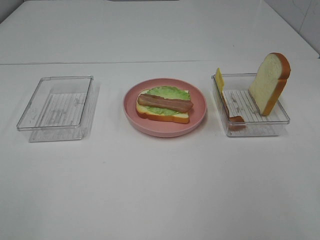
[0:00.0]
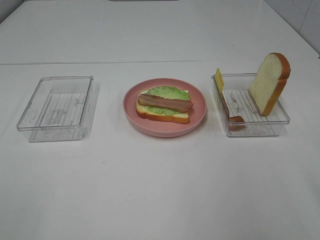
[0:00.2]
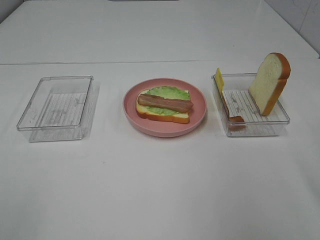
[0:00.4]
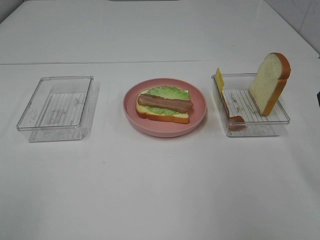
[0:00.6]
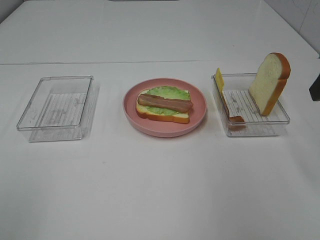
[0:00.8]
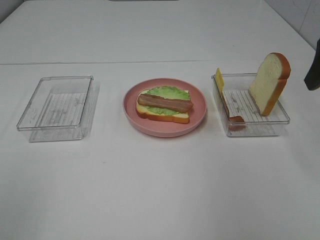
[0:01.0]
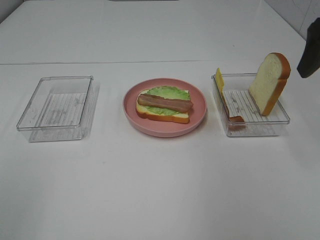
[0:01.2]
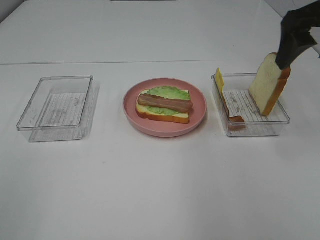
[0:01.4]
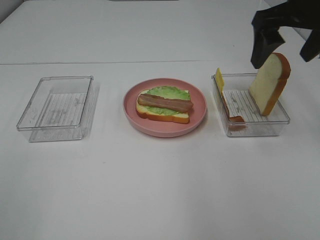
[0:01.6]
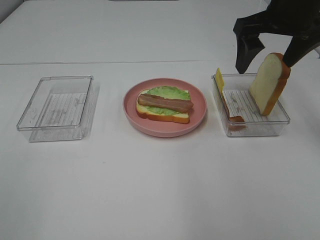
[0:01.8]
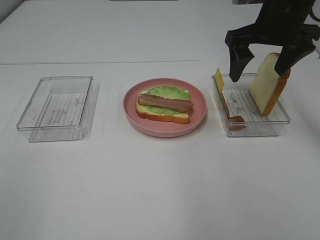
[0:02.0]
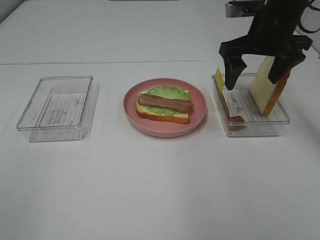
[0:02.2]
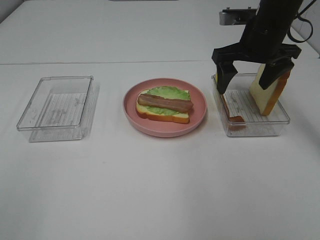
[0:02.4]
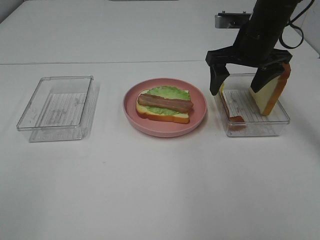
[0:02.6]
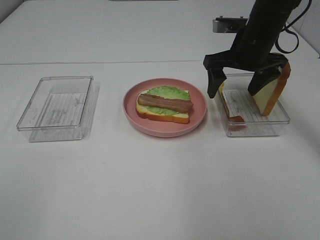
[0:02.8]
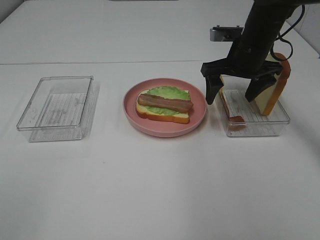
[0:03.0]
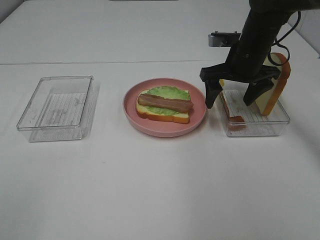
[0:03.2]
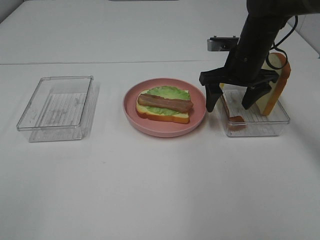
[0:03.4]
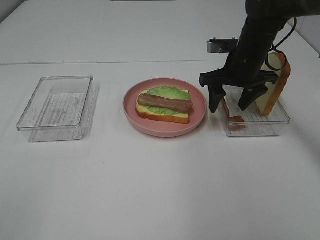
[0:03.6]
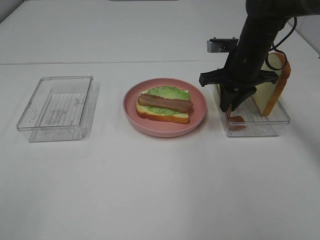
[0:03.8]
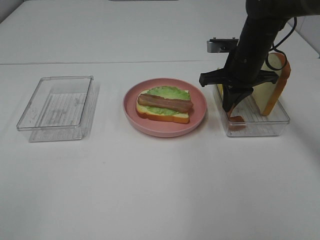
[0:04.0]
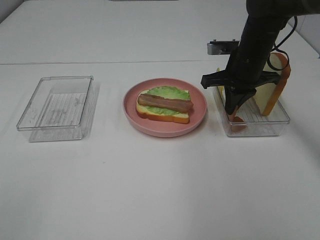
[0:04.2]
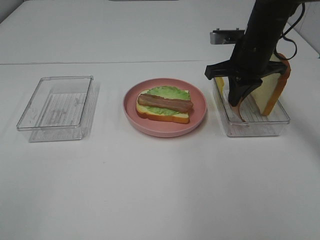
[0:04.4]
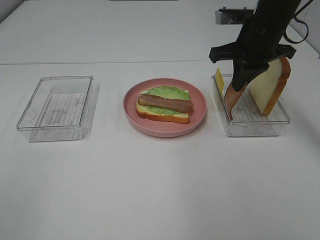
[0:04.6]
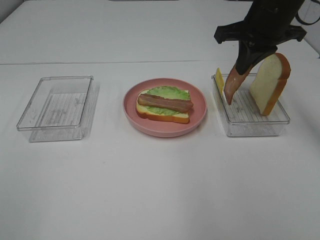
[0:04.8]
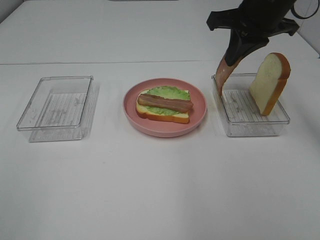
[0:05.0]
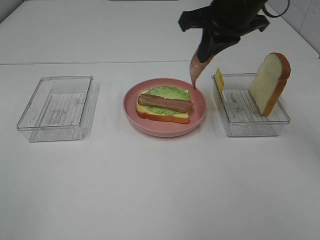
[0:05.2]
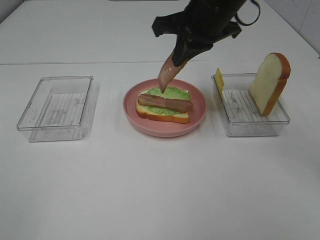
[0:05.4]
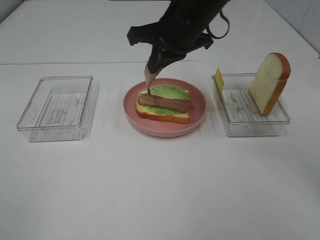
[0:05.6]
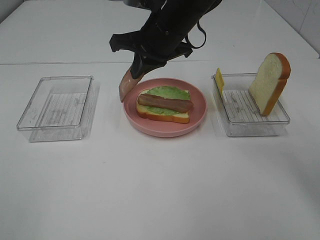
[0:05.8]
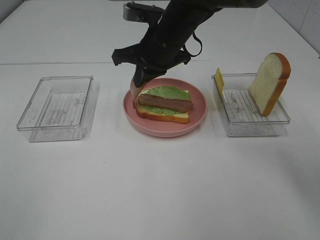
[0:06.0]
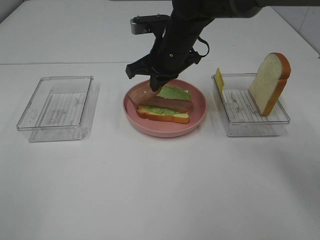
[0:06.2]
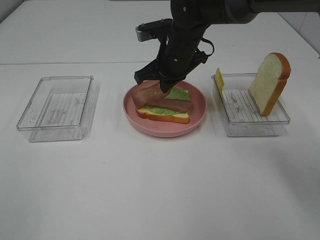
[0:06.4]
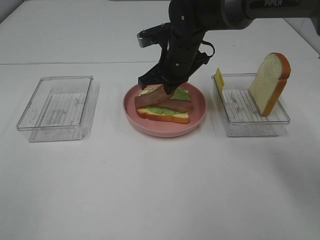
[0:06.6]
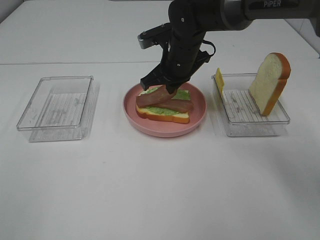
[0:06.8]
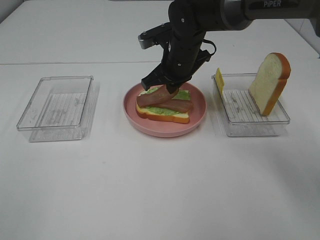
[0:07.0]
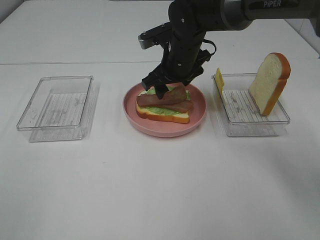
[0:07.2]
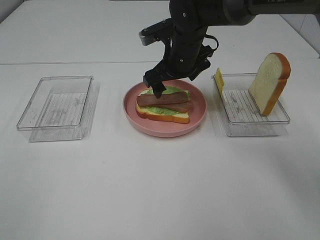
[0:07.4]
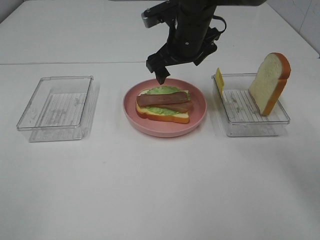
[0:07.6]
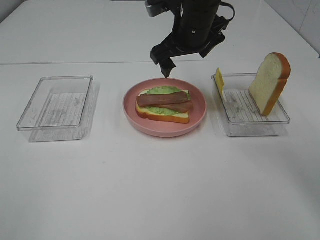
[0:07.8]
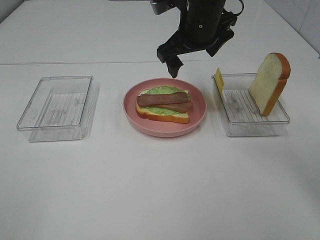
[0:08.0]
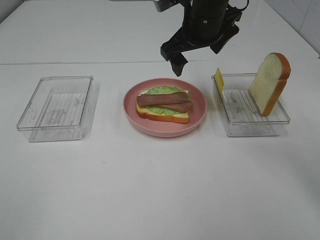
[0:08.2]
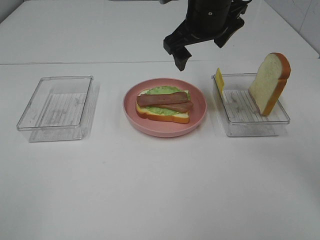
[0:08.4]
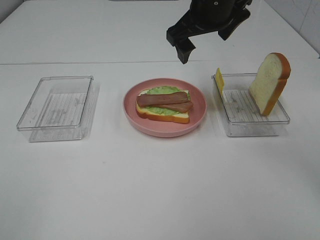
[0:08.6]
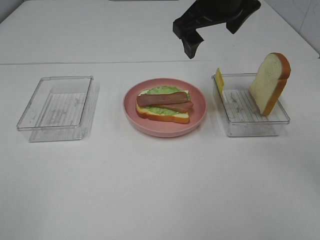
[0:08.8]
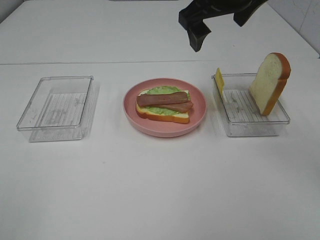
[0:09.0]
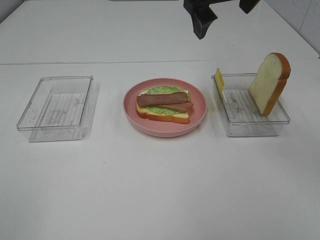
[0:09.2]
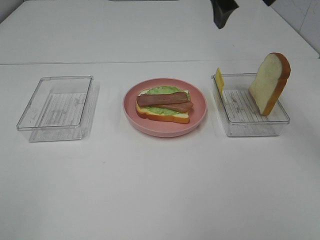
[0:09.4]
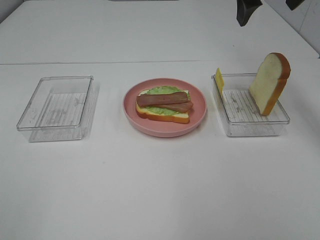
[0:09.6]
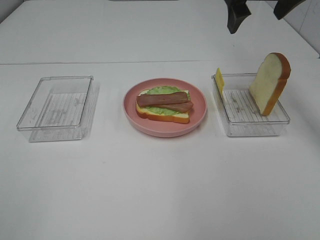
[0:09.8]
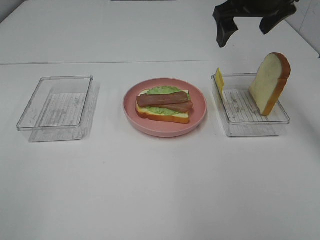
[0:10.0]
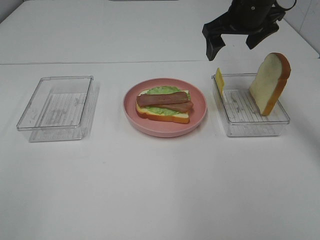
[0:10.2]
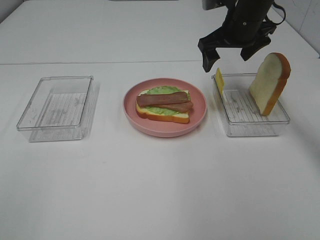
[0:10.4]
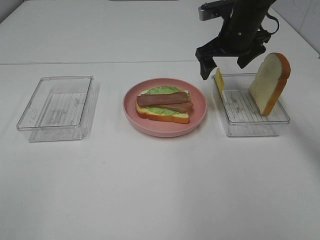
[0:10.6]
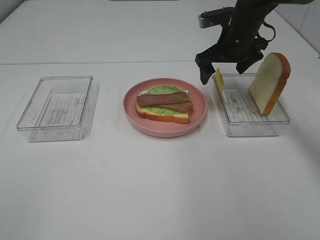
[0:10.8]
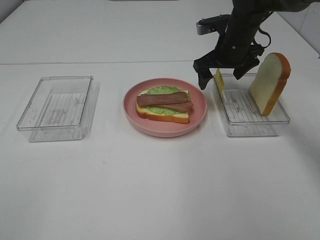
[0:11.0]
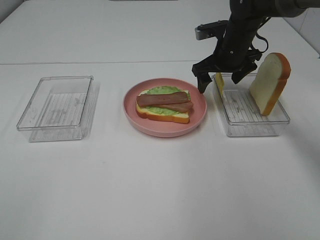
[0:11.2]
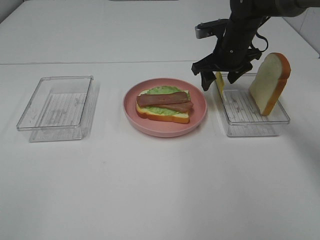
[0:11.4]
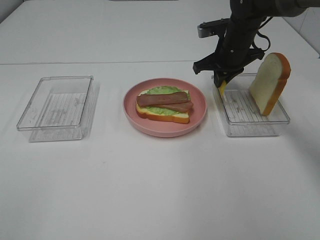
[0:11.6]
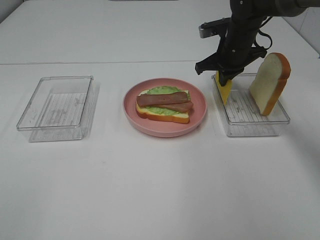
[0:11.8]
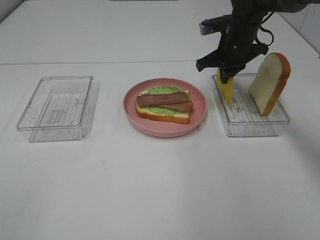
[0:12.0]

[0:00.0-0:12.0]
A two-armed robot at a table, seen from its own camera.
Task of the whole recording: Make sandwiches.
Step, 0:00.0 to 0:04.2: Right hand:grab the bacon.
Step, 0:04.4 to 0:07.6: Right hand:place bacon on bacon.
Step, 0:07.8 to 0:11.8: Right hand:grab the cheese slice.
0:00.0 to 0:01.6: The right gripper goes approximately 30 cm forward.
0:01.6 to 0:03.0: The right gripper goes some 15 cm downward and forward.
0:03.0 to 0:04.4: The right gripper closes its fingers.
0:04.4 to 0:06.0: The right gripper shifts some 15 cm to the left.
0:06.0 to 0:07.6: The right gripper opens up.
0:07.6 to 0:09.0: The right gripper moves upward and backward, about 10 cm.
0:09.0 to 0:10.4: The right gripper heads downward, forward and to the right, covering about 15 cm.
0:10.4 to 0:12.0: The right gripper moves approximately 5 cm, and closes up.

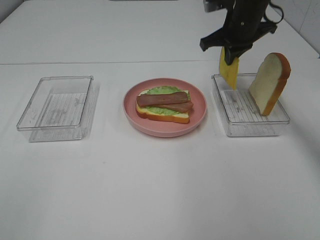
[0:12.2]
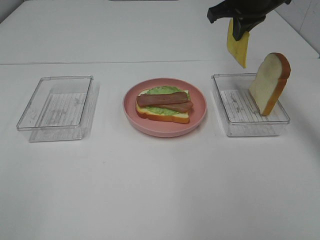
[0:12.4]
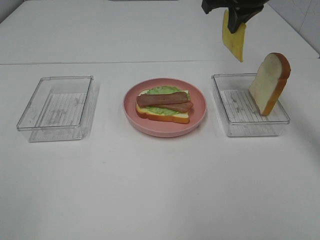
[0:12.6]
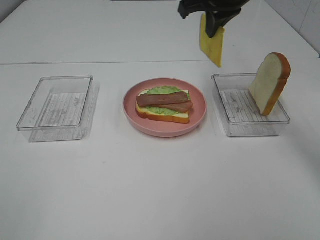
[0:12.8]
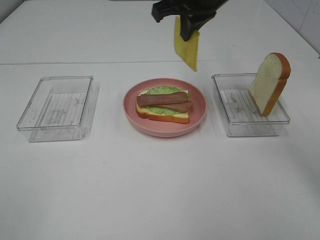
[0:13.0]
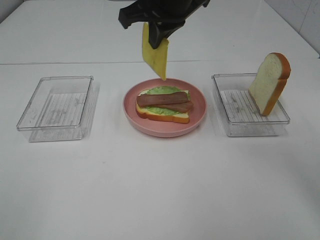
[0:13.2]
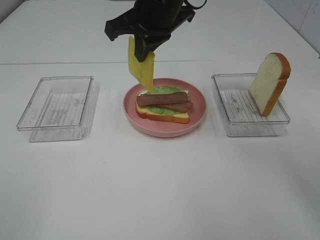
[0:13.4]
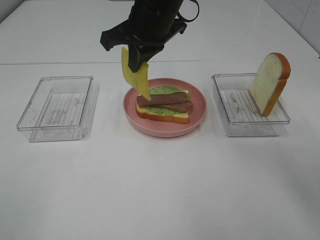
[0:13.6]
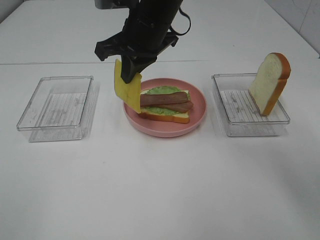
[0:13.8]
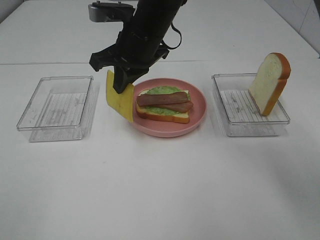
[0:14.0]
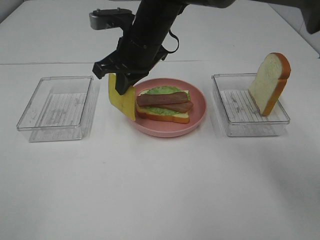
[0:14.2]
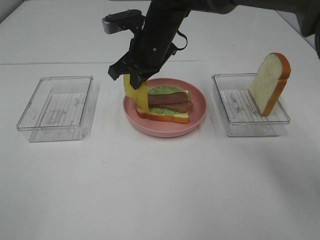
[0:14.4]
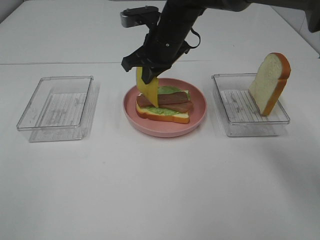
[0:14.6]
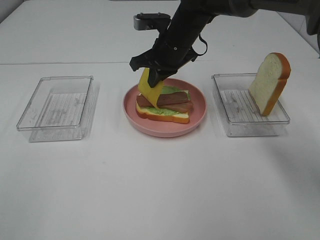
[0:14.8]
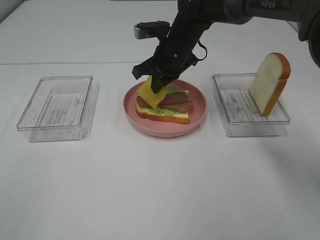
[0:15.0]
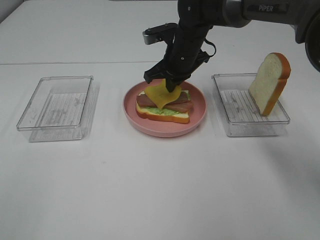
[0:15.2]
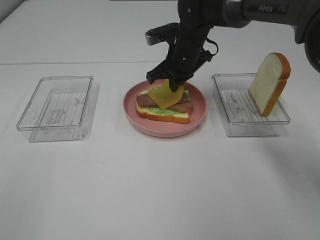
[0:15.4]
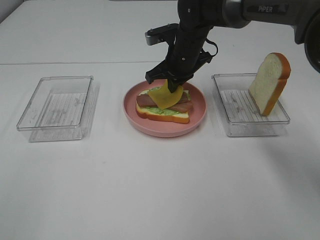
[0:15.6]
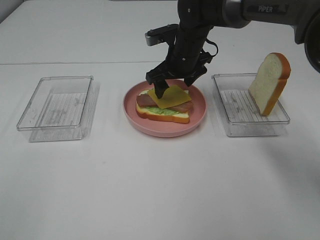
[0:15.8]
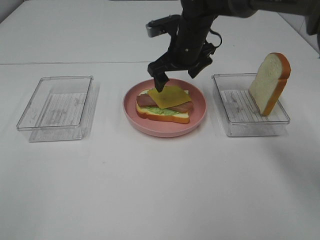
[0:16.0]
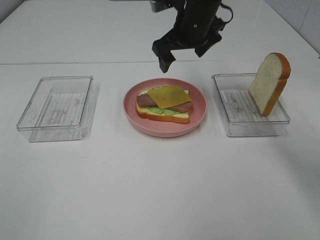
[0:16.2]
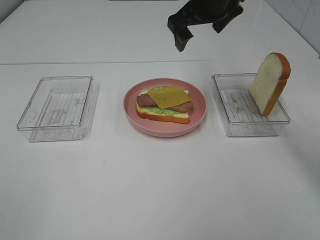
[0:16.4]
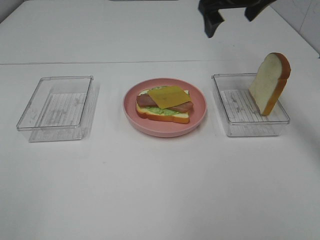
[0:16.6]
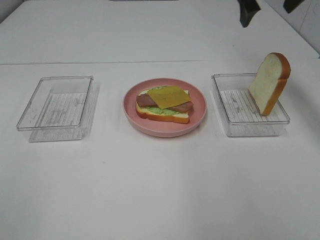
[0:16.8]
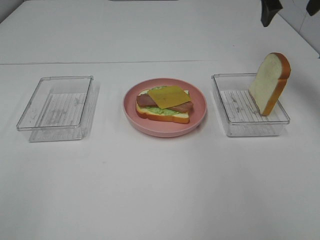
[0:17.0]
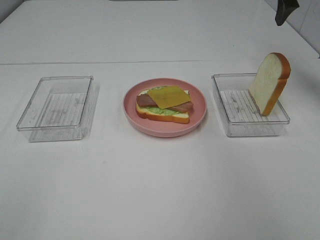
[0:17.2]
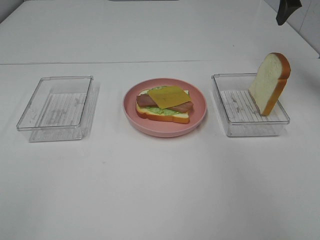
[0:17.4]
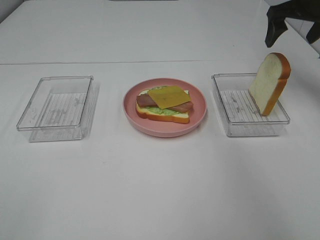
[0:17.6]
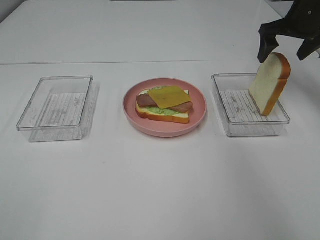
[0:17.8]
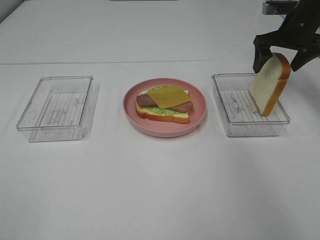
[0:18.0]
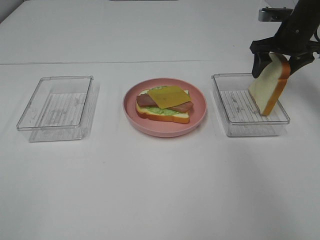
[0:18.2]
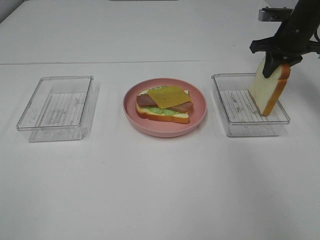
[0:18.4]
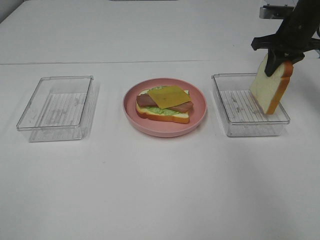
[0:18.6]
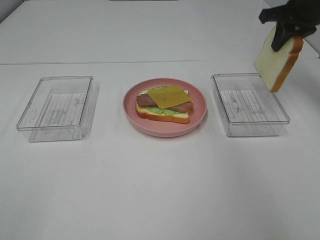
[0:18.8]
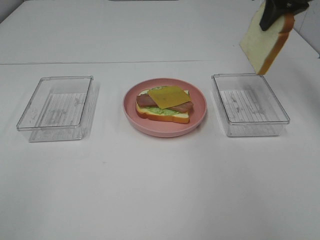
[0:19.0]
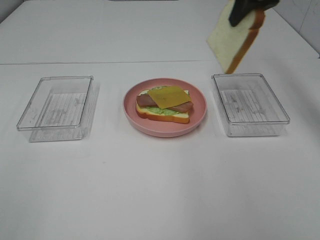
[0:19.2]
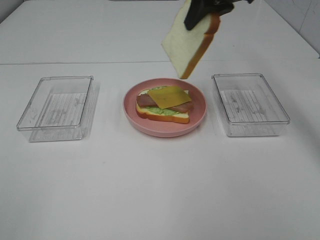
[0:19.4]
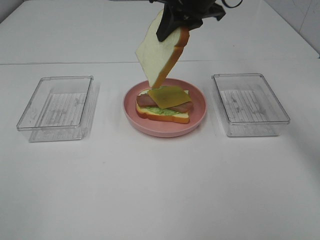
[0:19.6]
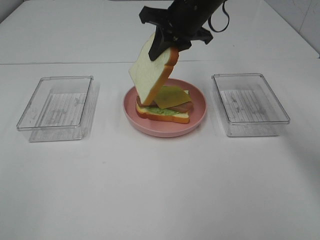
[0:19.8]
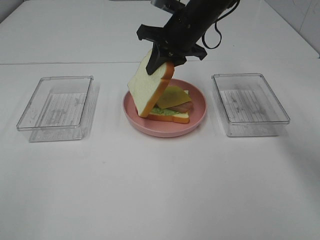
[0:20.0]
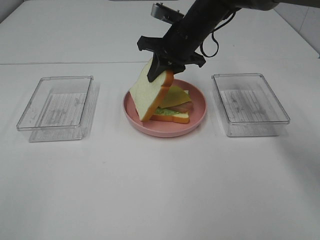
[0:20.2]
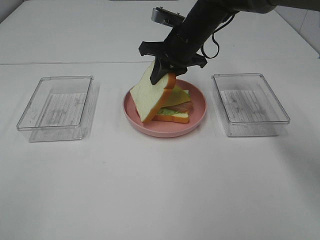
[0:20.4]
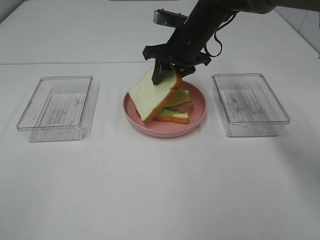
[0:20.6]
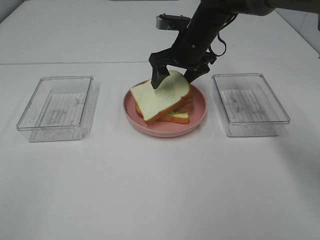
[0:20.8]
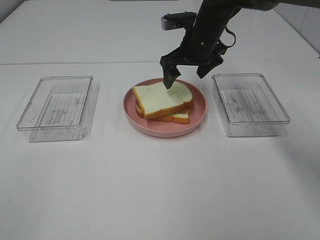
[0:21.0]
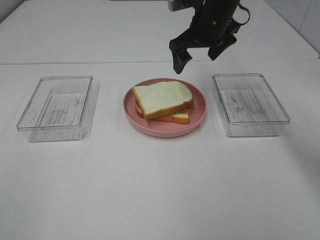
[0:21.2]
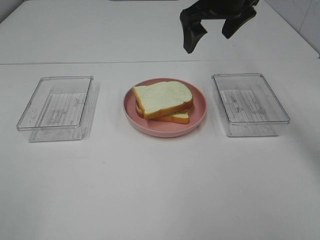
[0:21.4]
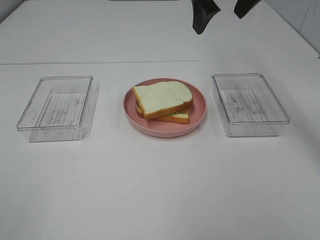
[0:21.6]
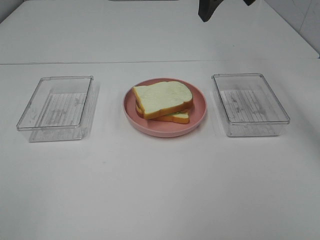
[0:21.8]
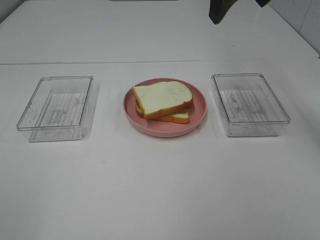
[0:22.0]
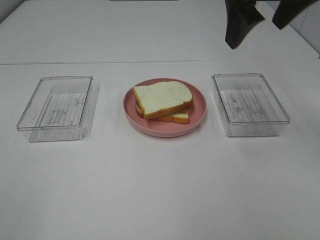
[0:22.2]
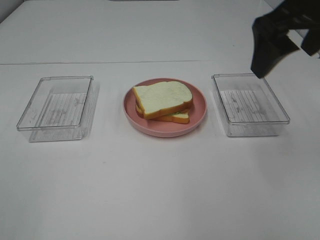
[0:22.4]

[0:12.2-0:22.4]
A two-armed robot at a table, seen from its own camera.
Task of the whole recording: Make sandwiches.
Step, 0:12.2 to 0:15.8: Right hand:place the cheese slice on top of the bacon.
Step, 0:16.0 to 0:18.4: Right hand:grab the bread slice.
Step, 0:18.6 to 0:21.0: Right hand:place the bread slice on the cheese slice.
0:12.2 to 0:13.6: The right gripper travels to the left and backward by roughly 20 cm.
0:13.6 to 0:15.2: The right gripper travels downward, forward and to the right by about 15 cm.
0:15.2 to 0:16.6: The right gripper moves upward and to the right, approximately 20 cm, and opens.
0:16.6 to 0:18.0: The right gripper travels to the right and downward by roughly 15 cm.
0:18.0 to 0:19.4: The right gripper travels to the left and upward by about 20 cm, and closes up.
0:19.4 to 0:21.0: The right gripper is displaced downward by about 15 cm, and opens.
0:21.0 to 0:22.4: The right gripper goes about 25 cm backward, upward and to the right.
